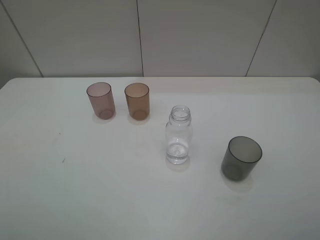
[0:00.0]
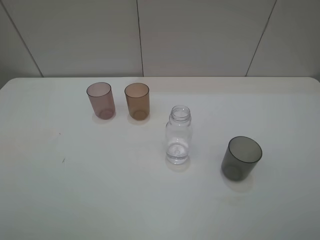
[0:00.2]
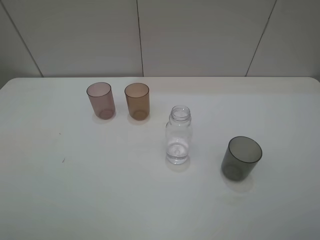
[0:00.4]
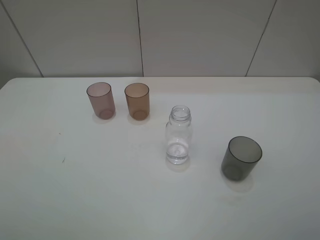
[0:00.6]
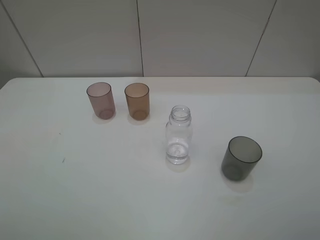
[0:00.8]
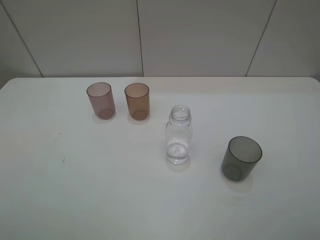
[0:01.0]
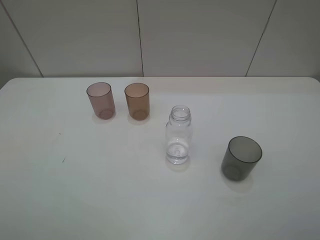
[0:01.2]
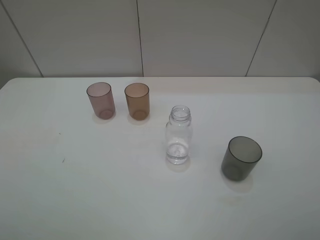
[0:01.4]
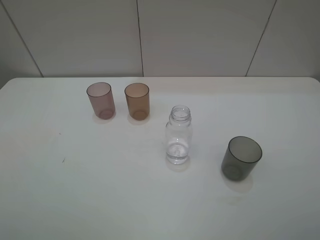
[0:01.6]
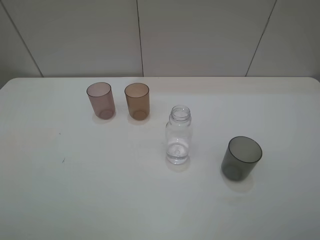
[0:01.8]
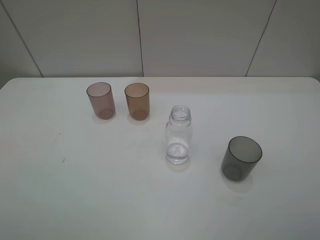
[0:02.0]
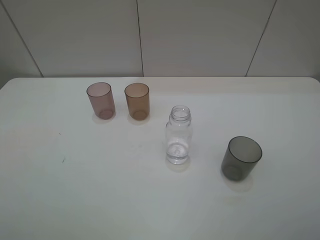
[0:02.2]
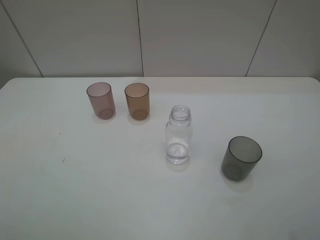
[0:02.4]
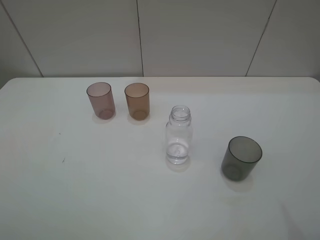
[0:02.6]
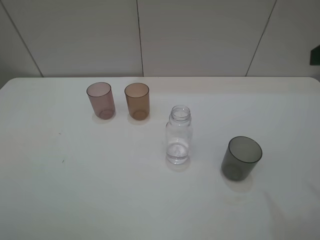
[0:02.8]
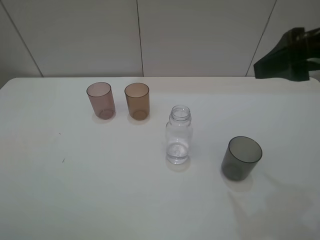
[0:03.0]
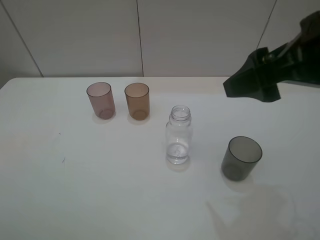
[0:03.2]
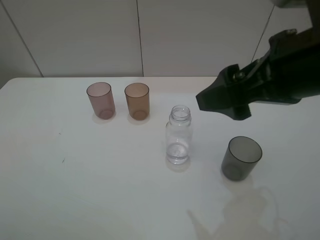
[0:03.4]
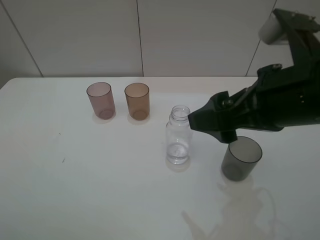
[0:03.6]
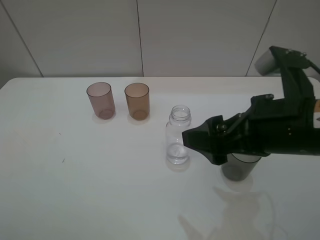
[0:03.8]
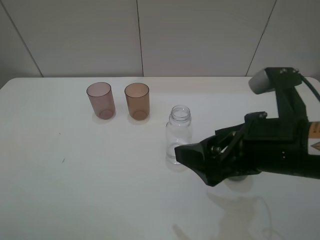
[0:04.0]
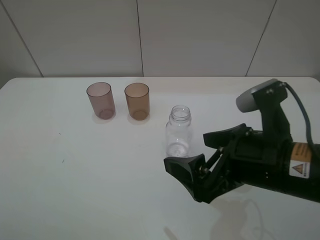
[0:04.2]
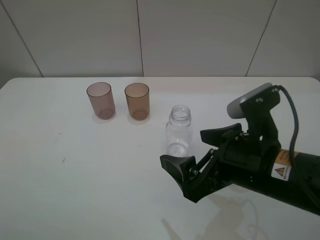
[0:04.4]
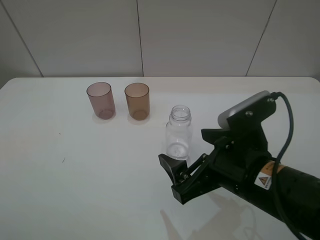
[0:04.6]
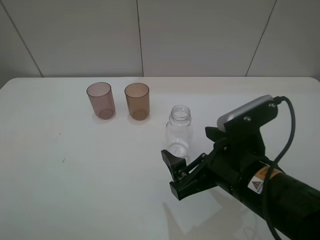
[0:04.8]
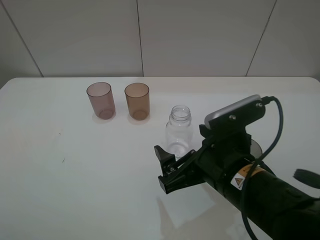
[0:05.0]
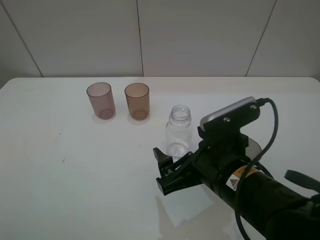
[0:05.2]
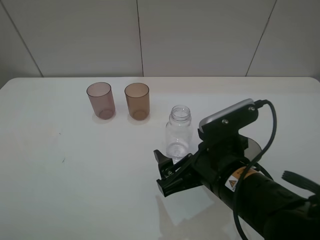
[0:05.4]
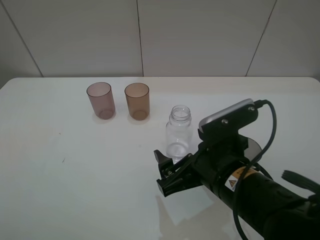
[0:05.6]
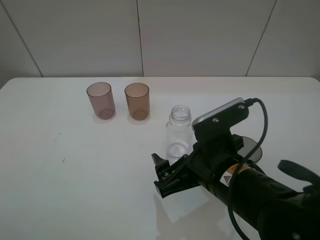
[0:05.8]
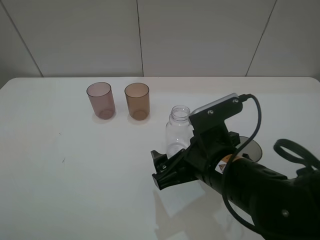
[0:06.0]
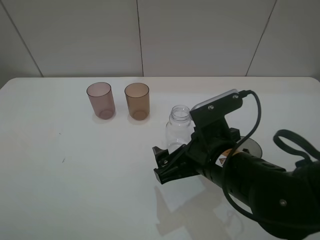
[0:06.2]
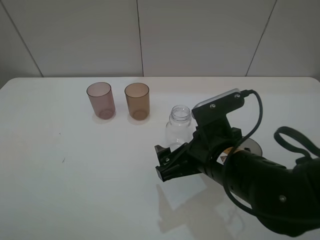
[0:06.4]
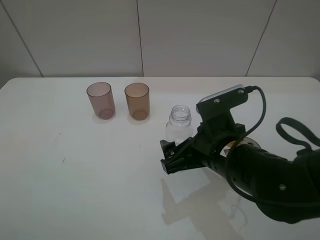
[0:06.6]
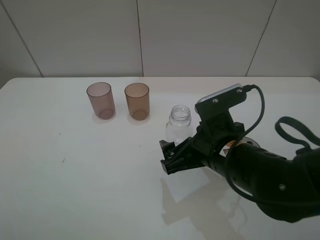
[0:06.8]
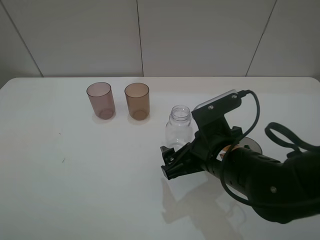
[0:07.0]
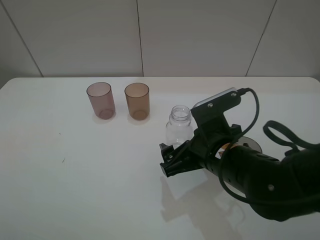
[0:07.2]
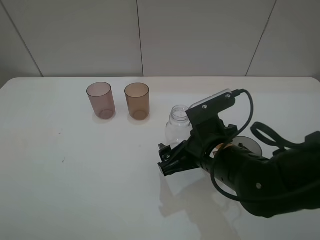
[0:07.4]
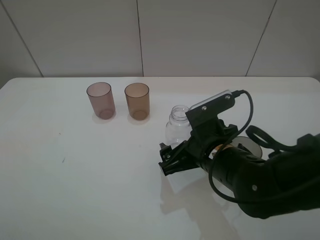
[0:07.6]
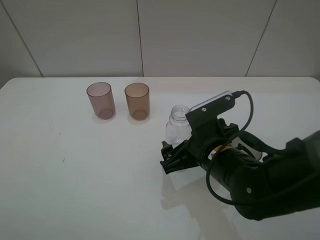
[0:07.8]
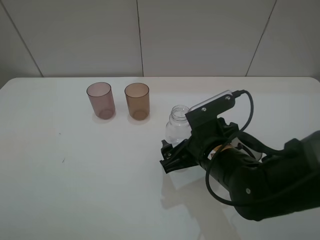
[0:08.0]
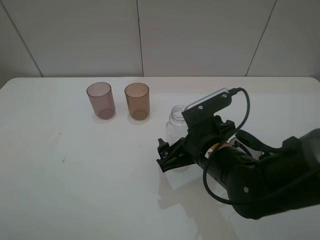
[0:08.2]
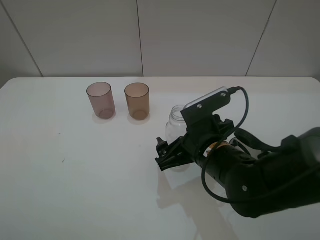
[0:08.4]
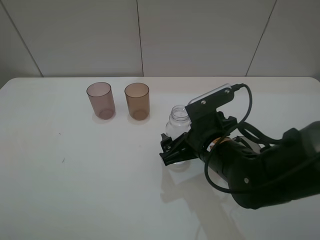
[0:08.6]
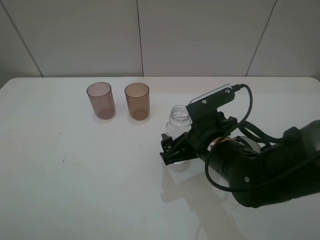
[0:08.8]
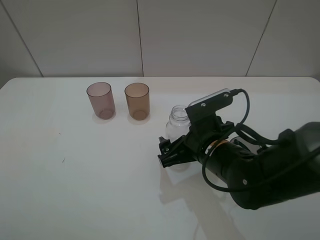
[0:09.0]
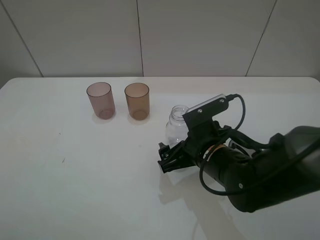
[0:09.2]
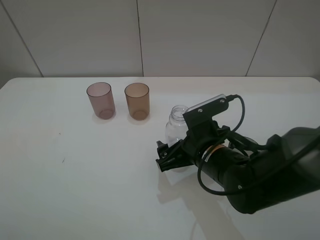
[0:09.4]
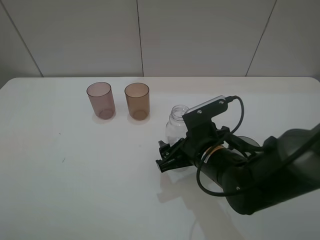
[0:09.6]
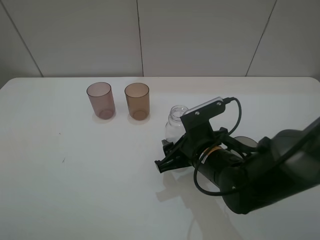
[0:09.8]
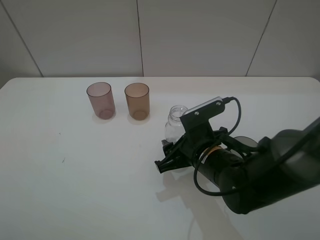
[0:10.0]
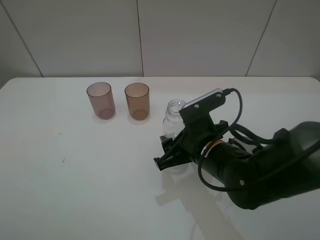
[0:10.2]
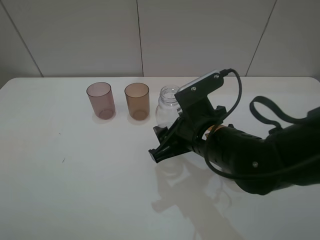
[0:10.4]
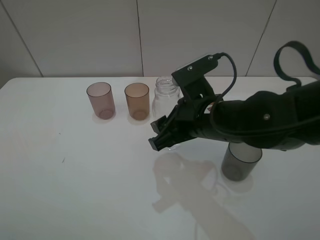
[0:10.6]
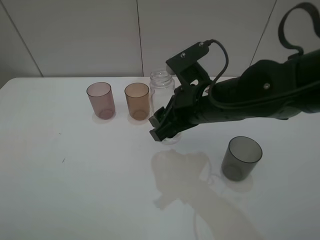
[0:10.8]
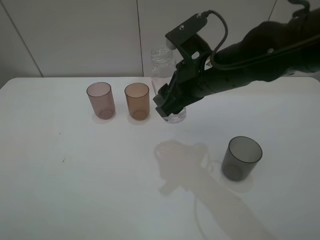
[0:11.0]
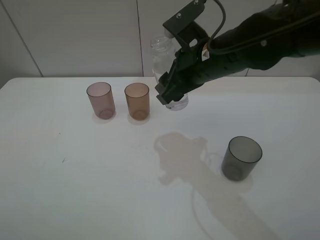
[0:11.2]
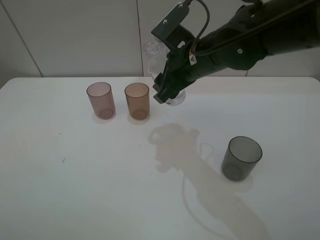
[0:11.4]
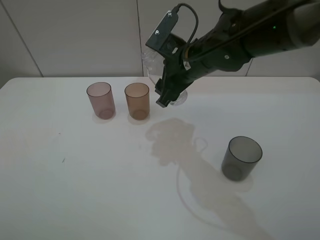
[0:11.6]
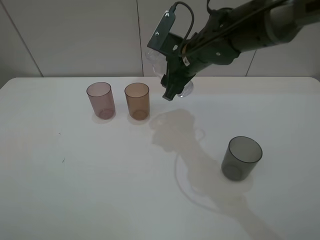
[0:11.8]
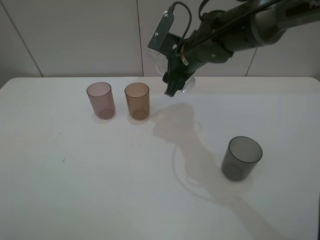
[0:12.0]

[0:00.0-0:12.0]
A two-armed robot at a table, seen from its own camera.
Task of the whole recording: pick up the bottle filled with water and pour water into the middle cup of the three cups.
Step, 0:00.0 to 0:10.0: Grasp the transparent bottle with the right gripper.
0:00.0 to 0:01.6: Neither gripper changes place.
0:01.6 to 0:03.0: The right gripper shifts about 20 cm forward and to the left.
0:03.0 to 0:04.4: The right gripper goes roughly 20 cm downward and to the left.
0:04.4 to 0:06.0: The right gripper shifts by roughly 5 cm.
0:06.0 to 0:09.0: The grippers make only small movements.
0:09.0 to 0:10.4: The right gripper closes up.
0:10.4 to 0:12.0: The right gripper heads forward, covering roughly 20 cm.

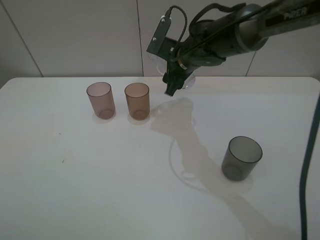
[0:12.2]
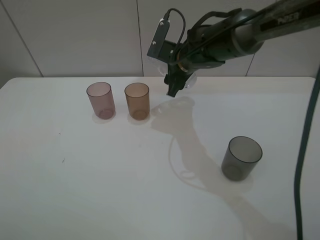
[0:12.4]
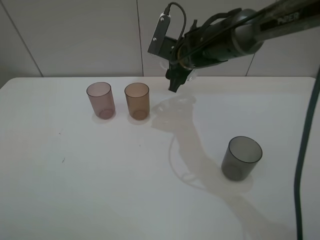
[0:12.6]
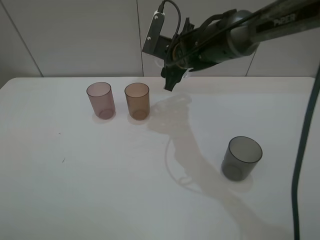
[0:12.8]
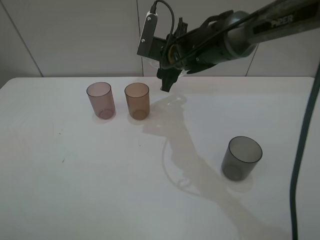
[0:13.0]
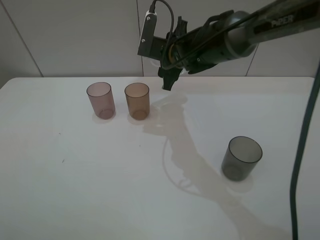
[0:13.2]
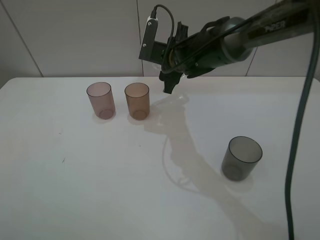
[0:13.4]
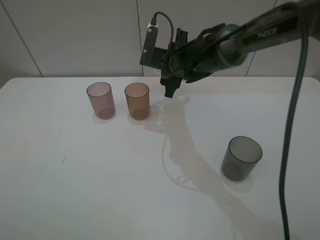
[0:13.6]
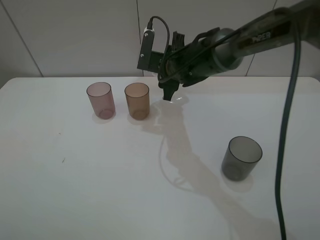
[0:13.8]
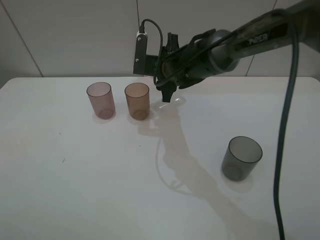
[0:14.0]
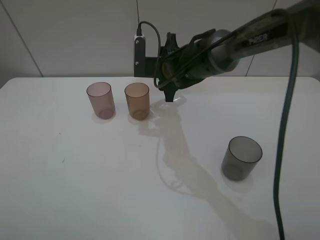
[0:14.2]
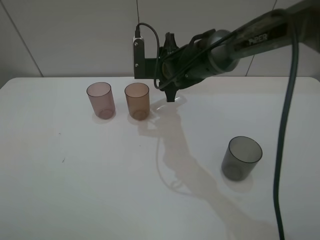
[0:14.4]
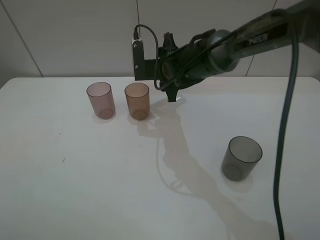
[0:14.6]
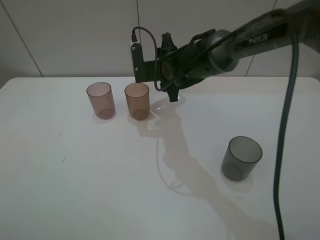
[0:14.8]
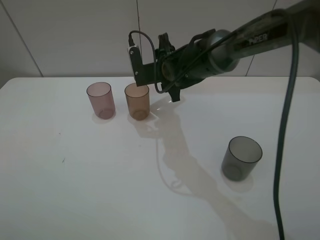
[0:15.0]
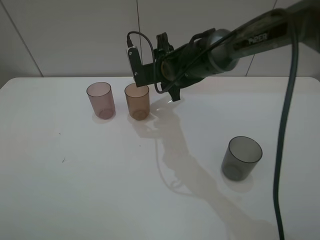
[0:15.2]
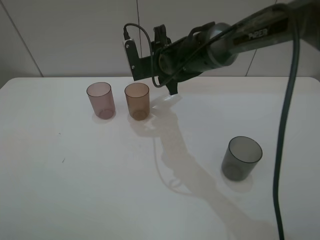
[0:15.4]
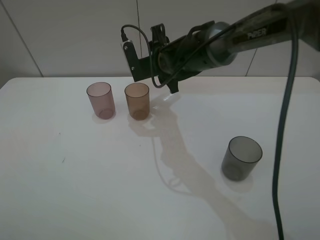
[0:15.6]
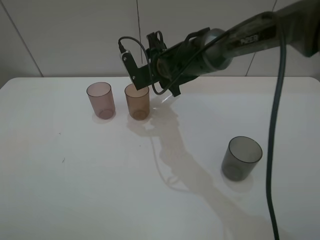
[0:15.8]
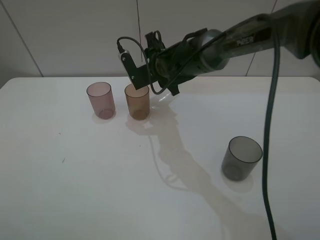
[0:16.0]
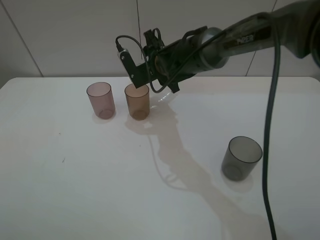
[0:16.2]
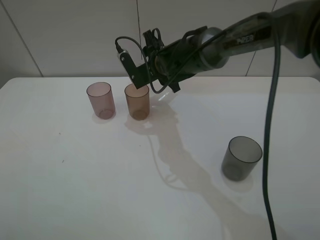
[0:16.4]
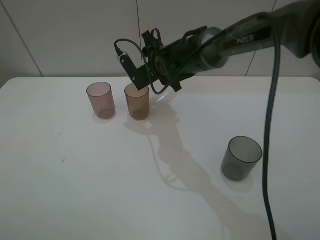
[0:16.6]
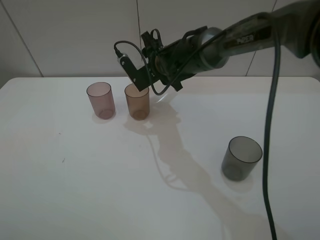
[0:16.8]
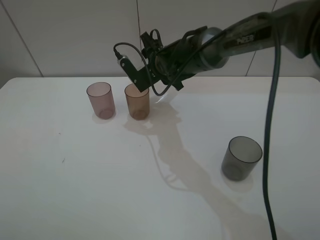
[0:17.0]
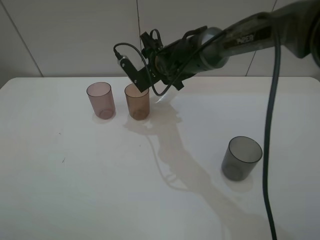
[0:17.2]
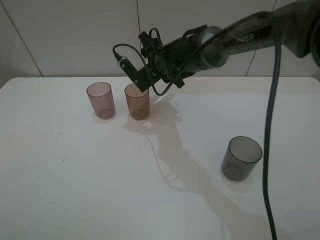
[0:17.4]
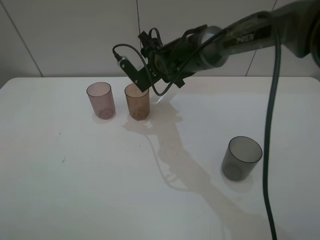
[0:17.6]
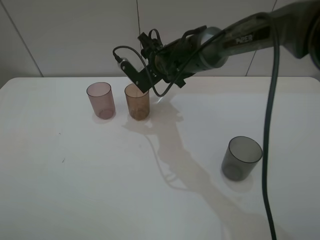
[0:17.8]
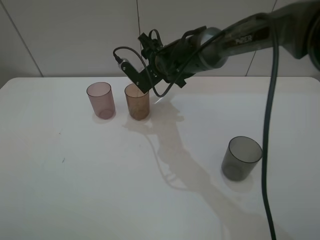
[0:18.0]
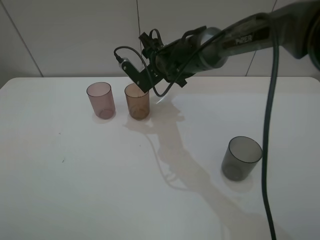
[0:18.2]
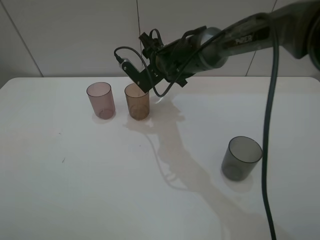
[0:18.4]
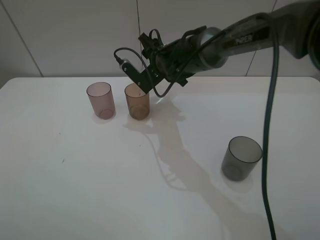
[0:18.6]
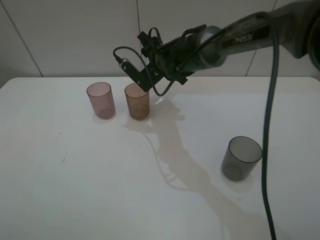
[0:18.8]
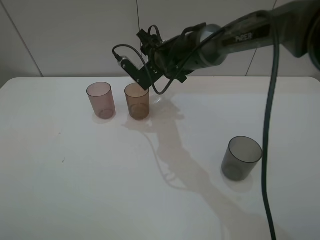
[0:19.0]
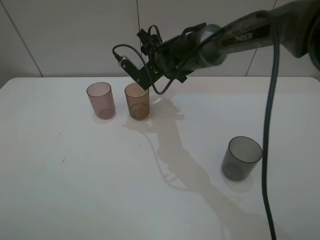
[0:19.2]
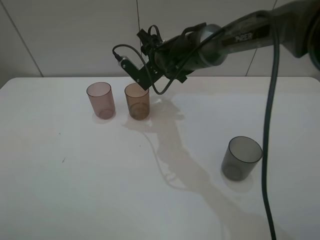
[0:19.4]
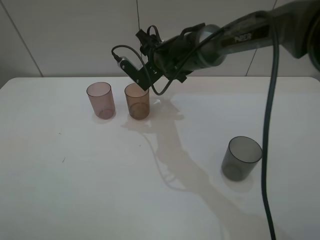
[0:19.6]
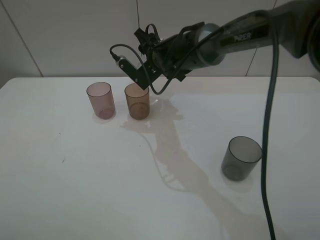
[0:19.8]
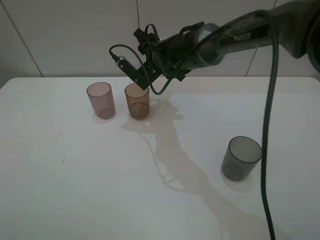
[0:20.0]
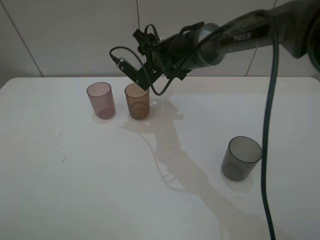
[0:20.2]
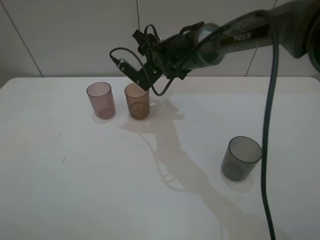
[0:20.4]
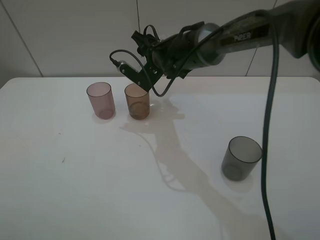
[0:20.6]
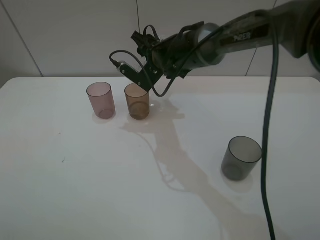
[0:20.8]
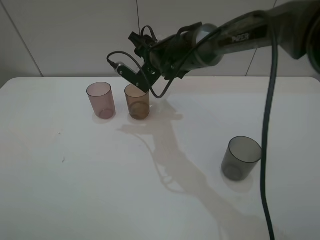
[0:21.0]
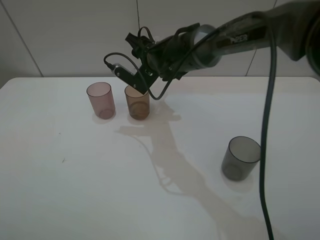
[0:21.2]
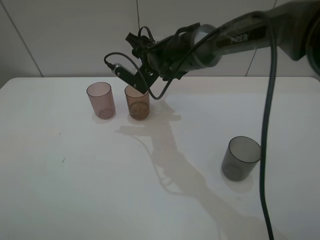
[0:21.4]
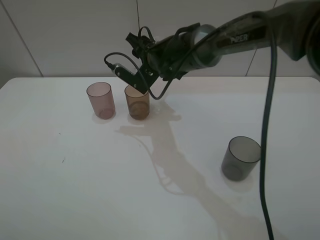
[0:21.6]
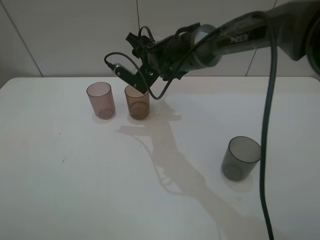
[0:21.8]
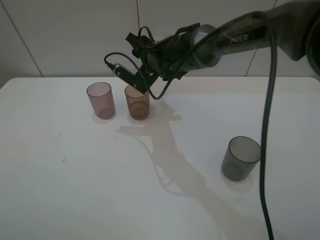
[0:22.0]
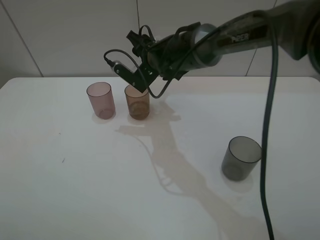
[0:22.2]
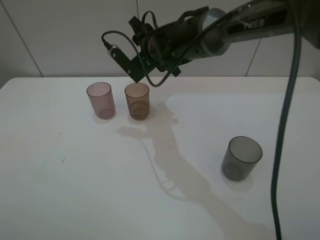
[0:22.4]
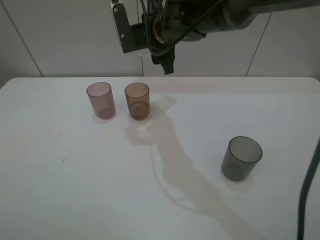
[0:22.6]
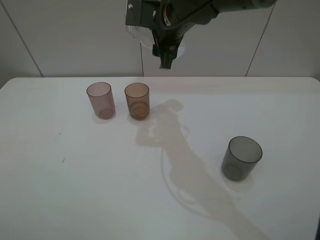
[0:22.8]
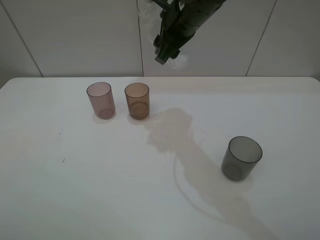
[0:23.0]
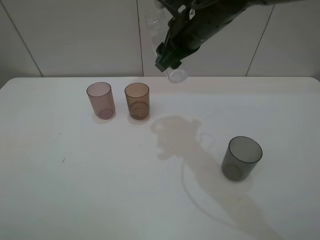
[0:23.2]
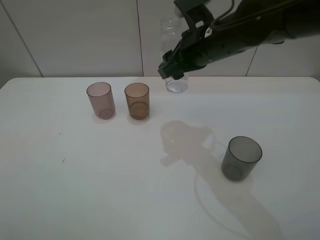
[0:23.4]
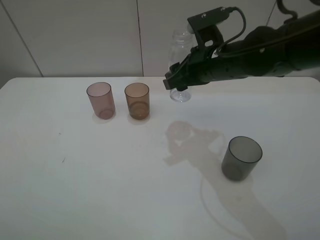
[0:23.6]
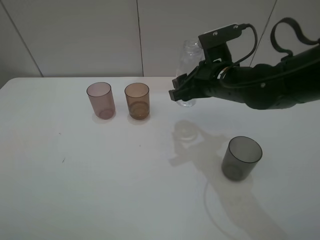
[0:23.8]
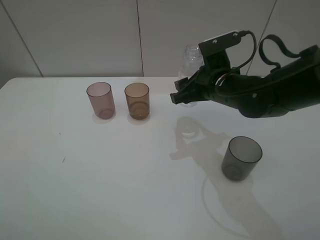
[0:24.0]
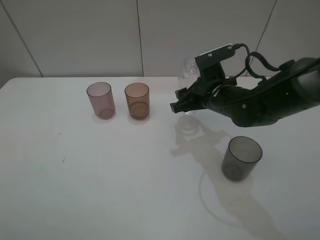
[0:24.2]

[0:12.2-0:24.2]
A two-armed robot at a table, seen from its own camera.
Task of the whole recording: pick up the bottle filled with water and pour water into the middle cup of the three cups.
Step, 0:12.2 to 0:18.0: Pour water from transparent bottle tobrown cup with the right gripper.
0:12.2 to 0:13.8: There are only small adjustments of the grippers.
0:15.2 to 0:16.6: The grippers stay close to where they were, moving slightly.
0:16.6 to 0:18.2: The grippers stay close to where they were, moving slightly.
0:18.2 to 0:19.8: The two grippers keep their place.
0:19.8 to 0:21.2: There are only small adjustments of the grippers.
0:21.2 to 0:22.6: The right gripper shifts about 5 cm upward.
0:22.6 to 0:24.2: The right gripper shifts some 15 cm downward, to the right and backward.
